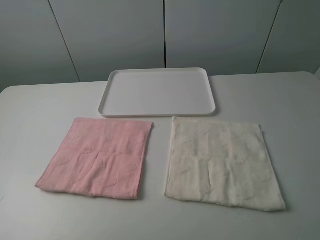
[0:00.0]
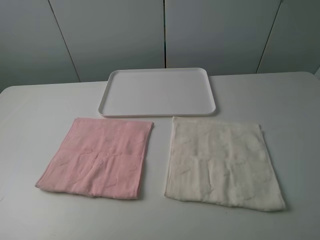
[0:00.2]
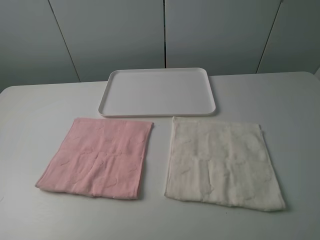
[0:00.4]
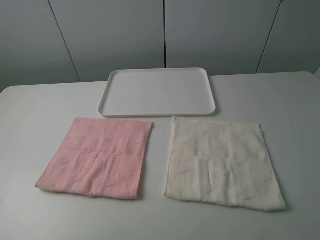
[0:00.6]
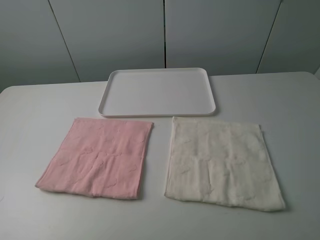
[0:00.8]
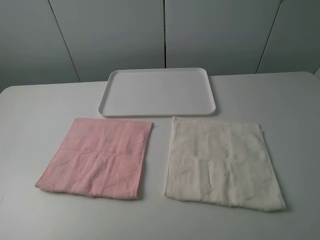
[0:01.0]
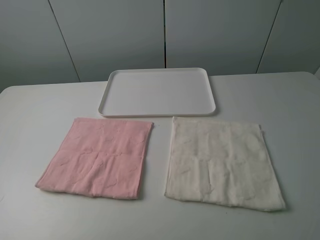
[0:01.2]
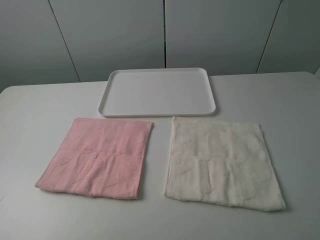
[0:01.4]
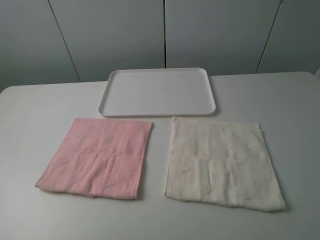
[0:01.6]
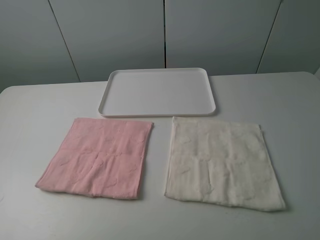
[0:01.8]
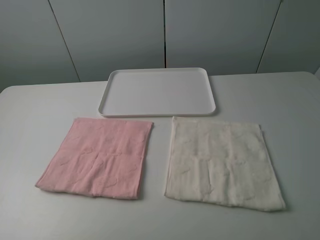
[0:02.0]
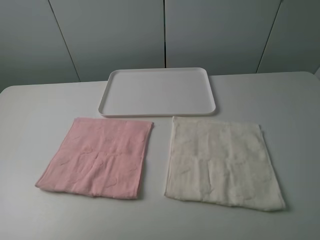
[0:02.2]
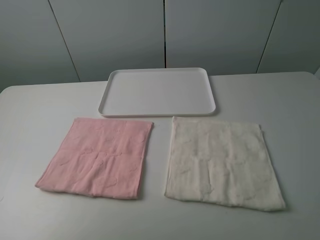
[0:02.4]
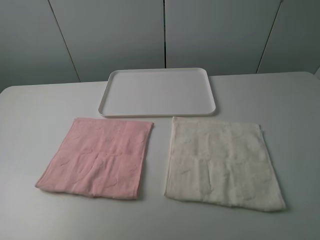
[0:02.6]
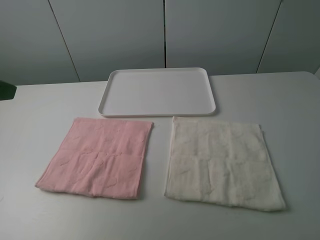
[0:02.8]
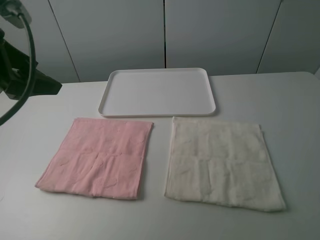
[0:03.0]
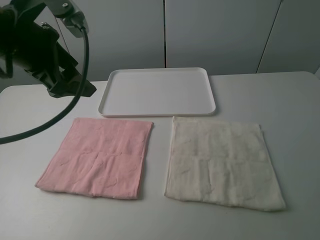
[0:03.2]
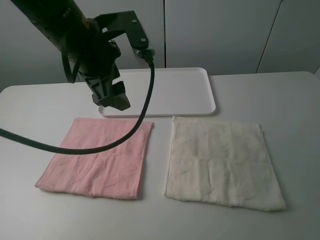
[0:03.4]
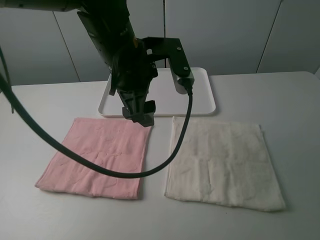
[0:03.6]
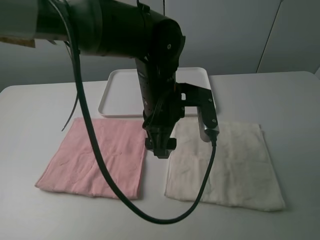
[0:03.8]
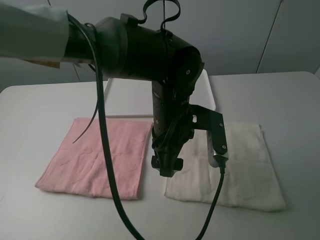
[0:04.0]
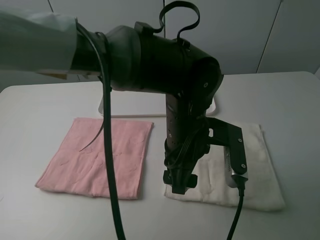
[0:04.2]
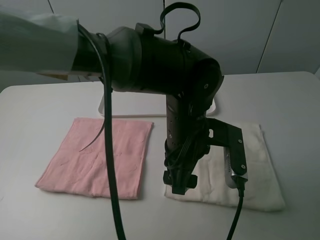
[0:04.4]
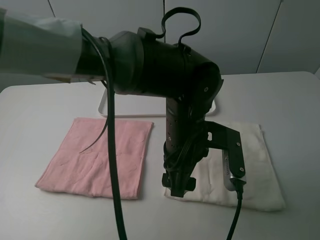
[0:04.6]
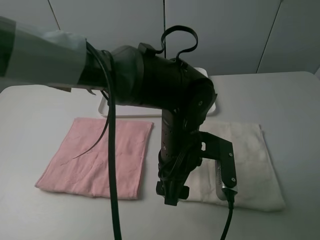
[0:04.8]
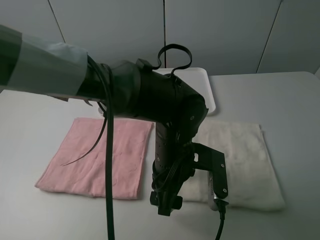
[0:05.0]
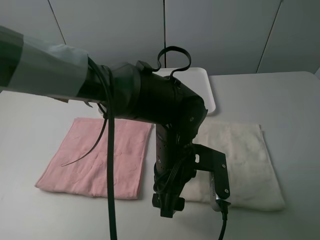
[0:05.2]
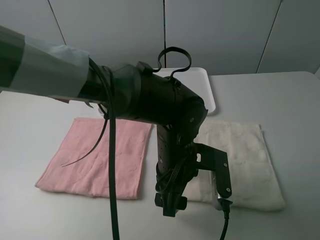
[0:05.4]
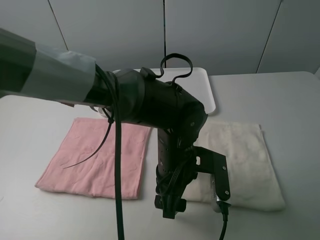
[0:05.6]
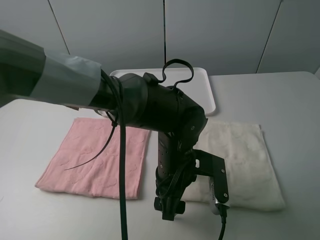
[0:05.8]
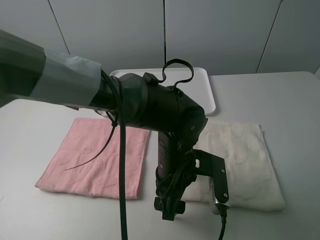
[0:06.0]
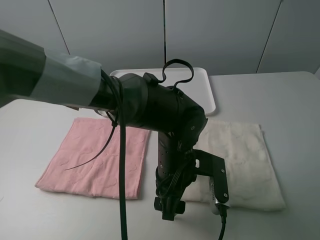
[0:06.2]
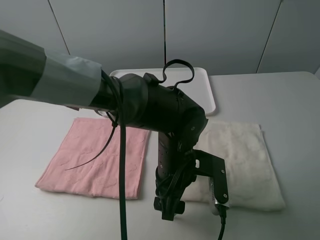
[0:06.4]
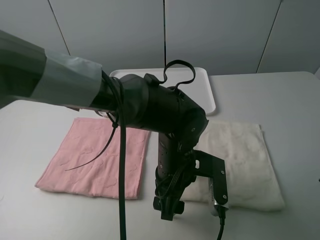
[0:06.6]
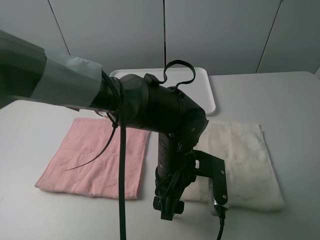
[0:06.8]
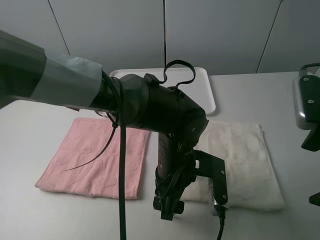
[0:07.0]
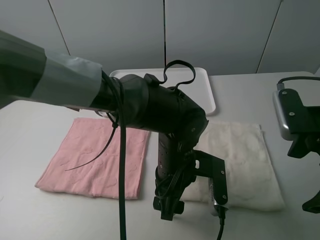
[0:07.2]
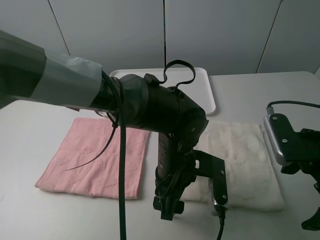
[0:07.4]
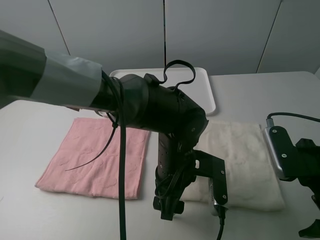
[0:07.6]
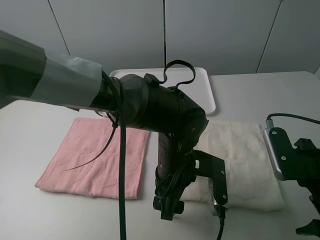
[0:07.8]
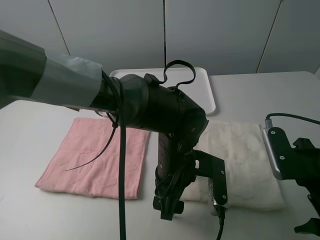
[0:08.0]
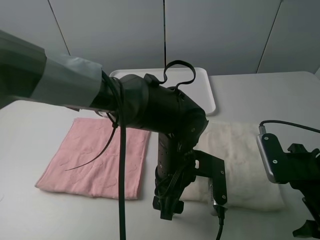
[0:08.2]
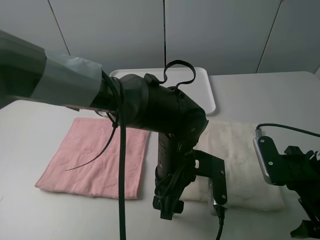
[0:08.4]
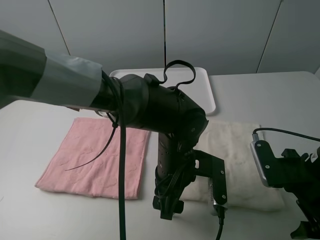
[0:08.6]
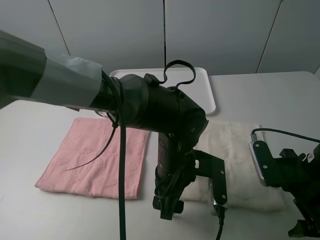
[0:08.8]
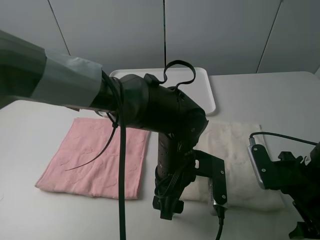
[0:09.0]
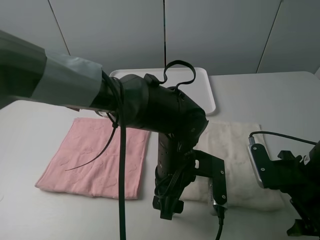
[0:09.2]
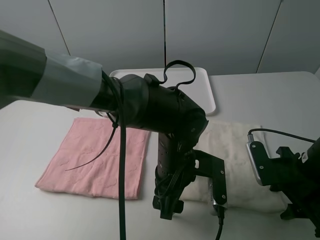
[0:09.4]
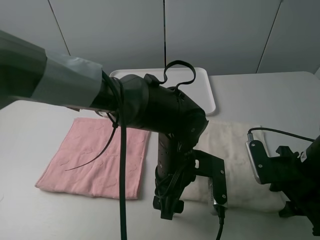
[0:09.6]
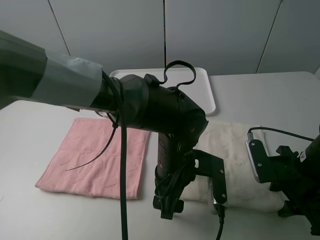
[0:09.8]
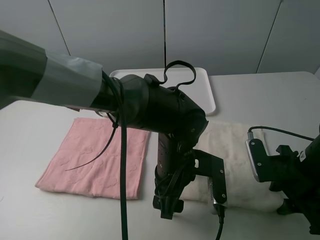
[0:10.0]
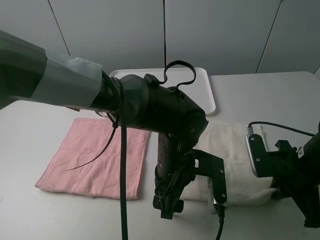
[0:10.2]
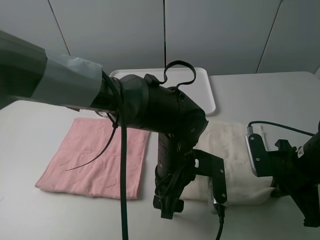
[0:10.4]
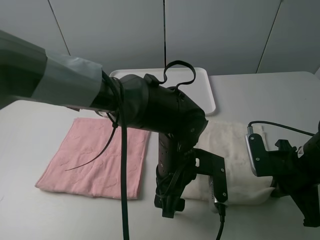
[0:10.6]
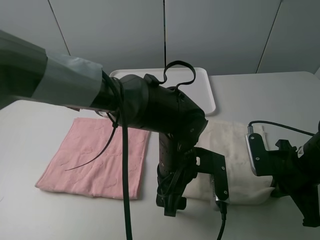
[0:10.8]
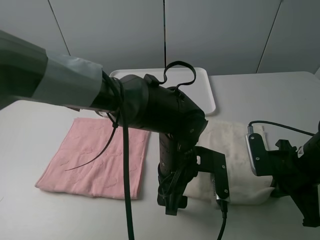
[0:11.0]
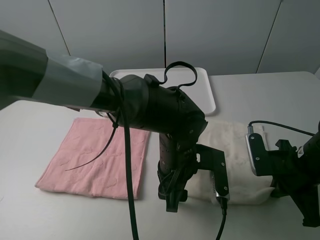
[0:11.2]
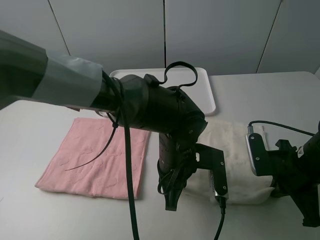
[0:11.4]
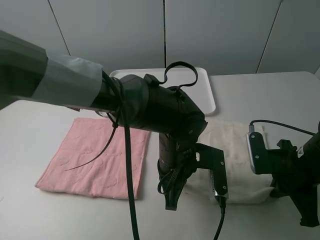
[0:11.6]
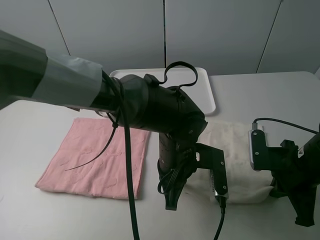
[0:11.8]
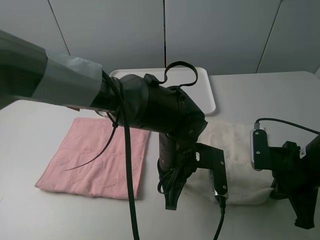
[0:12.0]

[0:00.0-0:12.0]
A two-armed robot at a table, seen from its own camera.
Task of the whole recording: fold one of the towels by two grippers and place it on the tray,then fold another towel by two grippers and place it on the folded towel.
Step, 0.0 to 11.0 s: Grasp the white towel with the left gripper.
0.0 to 1.6 s: Both grippers stay about where they are.
1.6 to 3.0 s: The left gripper moves forward, approximately 25 cm.
3.0 to 4.4 s: The left gripper is displaced to the right and downward by roughly 30 cm.
4.4 to 6.0 s: The left gripper shifts about 5 cm downward.
6.0 to 7.6 s: The right gripper shifts some 15 cm downward and forward.
7.6 to 9.0 s: The right gripper heads downward, covering roughly 5 cm.
9.0 to 10.4 s: The right gripper closes up.
10.4 to 12.0 s: The left gripper closes up.

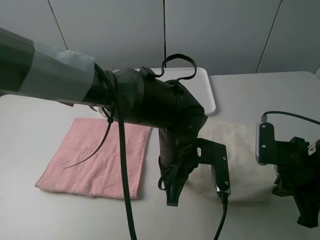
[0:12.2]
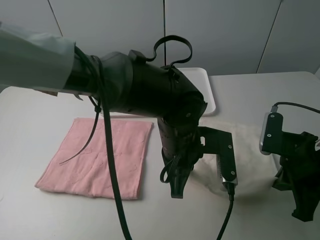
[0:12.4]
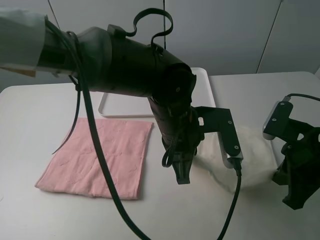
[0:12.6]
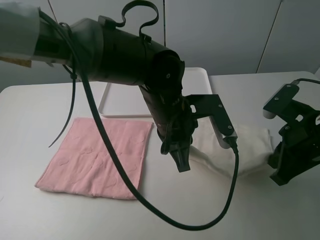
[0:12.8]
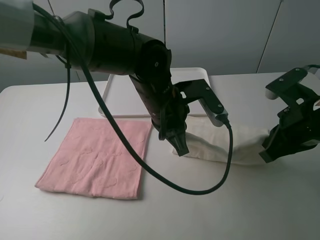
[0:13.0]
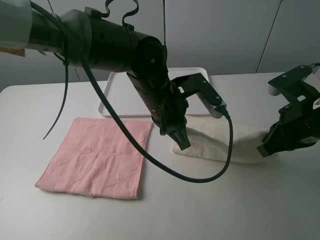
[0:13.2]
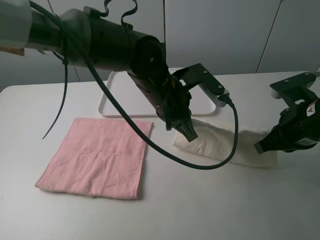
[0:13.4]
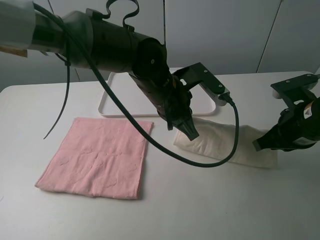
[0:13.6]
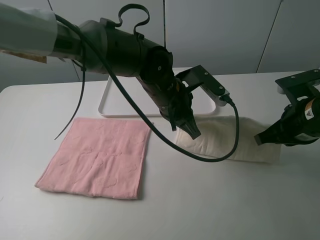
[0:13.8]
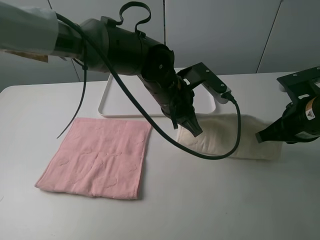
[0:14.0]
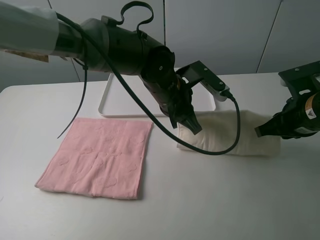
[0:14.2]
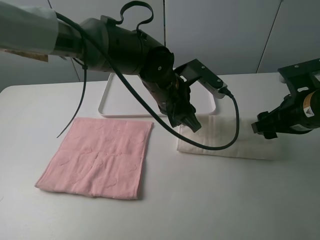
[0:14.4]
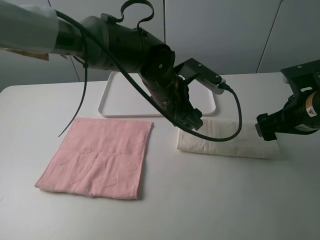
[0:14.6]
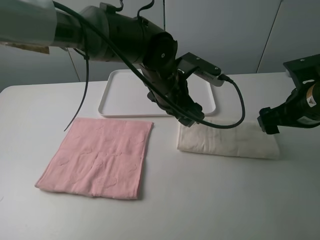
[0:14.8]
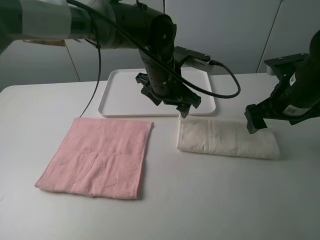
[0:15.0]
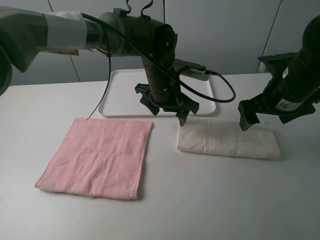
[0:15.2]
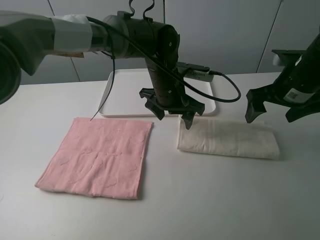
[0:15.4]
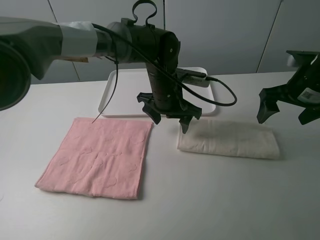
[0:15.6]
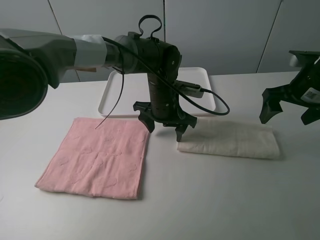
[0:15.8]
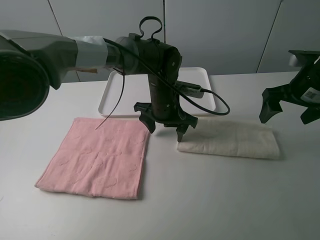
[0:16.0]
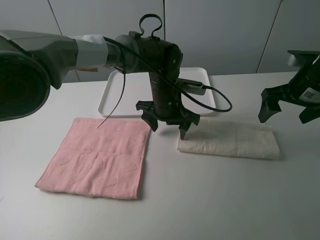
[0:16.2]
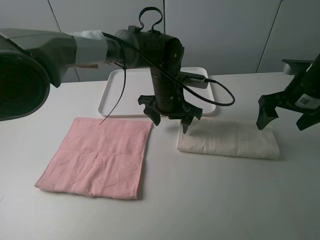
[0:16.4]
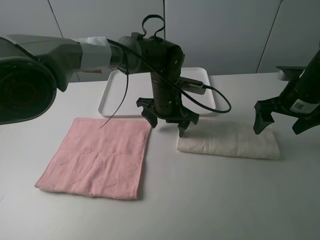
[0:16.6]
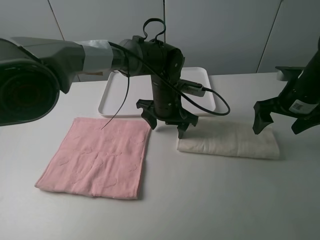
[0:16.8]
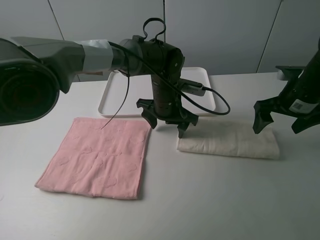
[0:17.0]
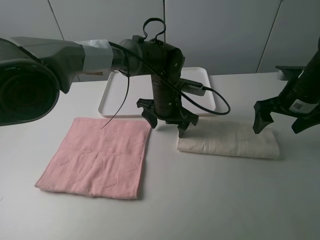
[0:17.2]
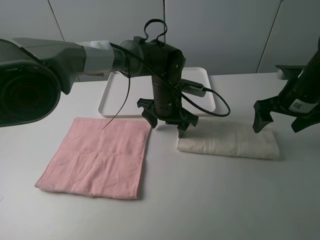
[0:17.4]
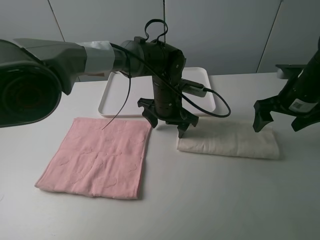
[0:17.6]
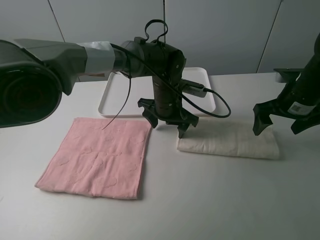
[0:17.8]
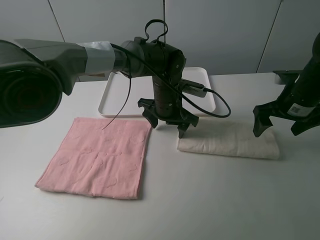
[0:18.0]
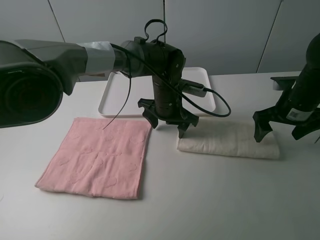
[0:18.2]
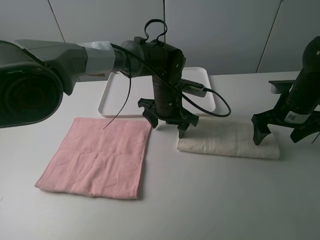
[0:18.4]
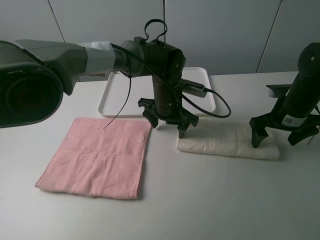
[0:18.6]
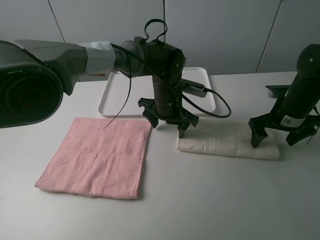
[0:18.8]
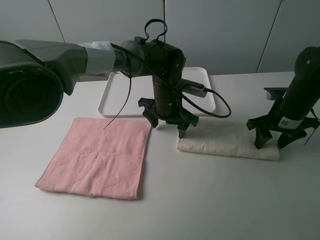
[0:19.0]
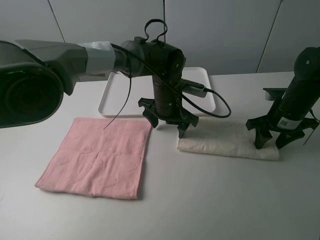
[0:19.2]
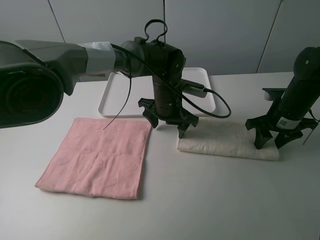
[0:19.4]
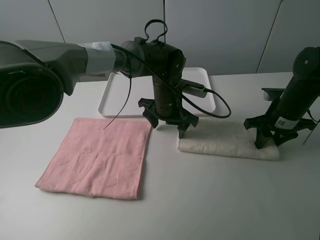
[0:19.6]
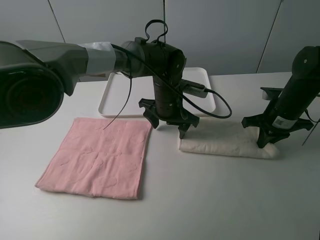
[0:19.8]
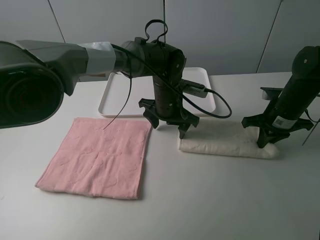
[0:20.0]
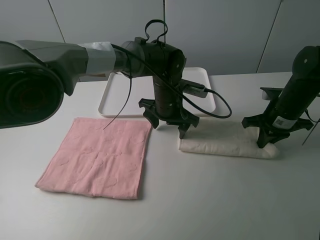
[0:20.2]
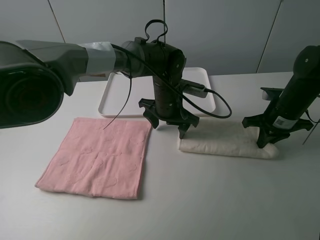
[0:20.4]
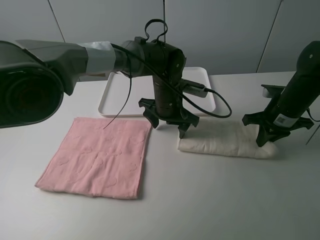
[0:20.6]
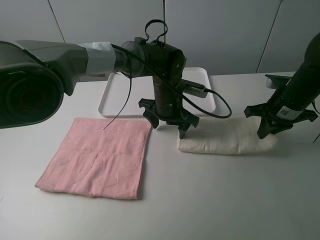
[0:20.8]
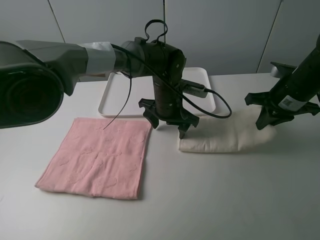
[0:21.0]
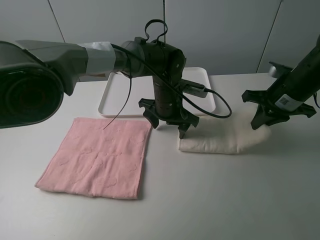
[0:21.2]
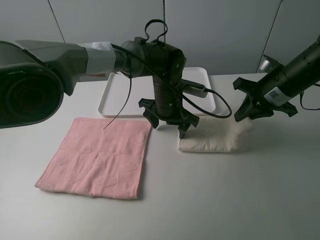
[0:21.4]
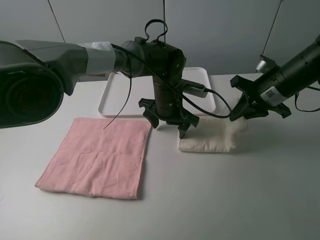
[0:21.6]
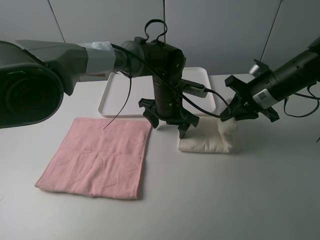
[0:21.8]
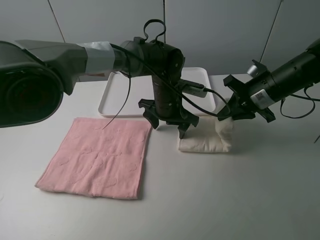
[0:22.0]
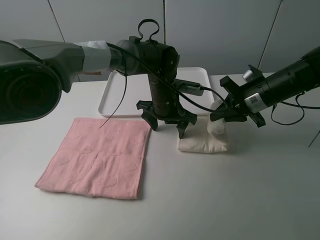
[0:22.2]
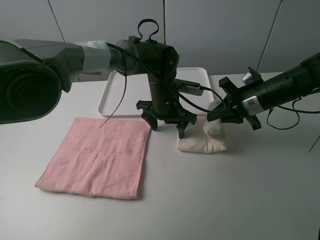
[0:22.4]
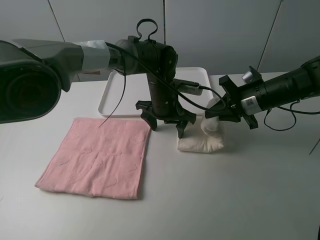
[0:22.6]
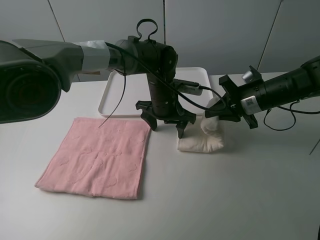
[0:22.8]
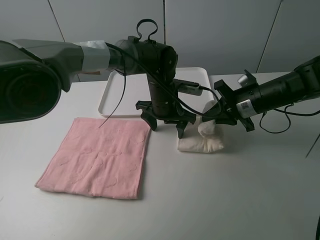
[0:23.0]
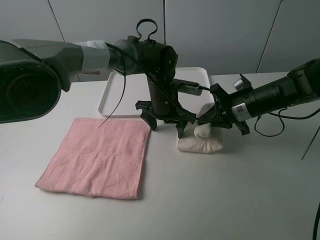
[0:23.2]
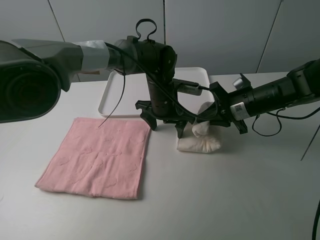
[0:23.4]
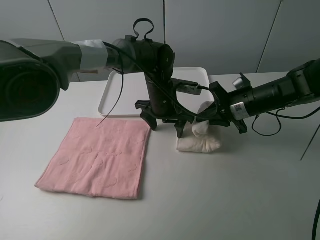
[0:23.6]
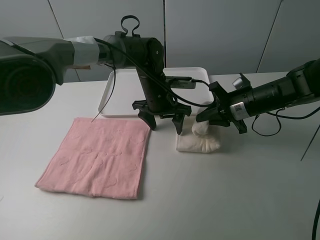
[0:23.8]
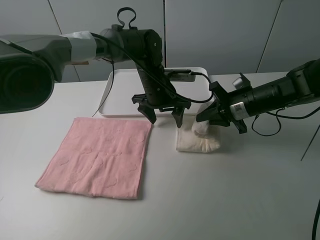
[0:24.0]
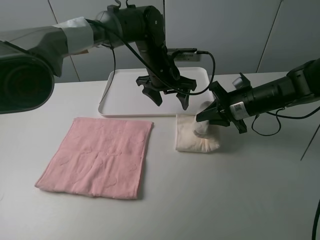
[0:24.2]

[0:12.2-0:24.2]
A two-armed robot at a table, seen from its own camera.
Task of the whole recording: fold one of the towels by two grippers and place it on the tray,then fold another towel by two grippers and place it on the folded towel.
Step, 12.2 to 14.4 s: Fold the white towel upwards with the left gripper.
Step, 14.6 to 17.0 s: Press the white towel with the left gripper.
Step, 17.2 to 19.8 s: Grasp the white towel with the right gripper.
12.2 to 13.8 s: The left gripper goes some 10 cm forward; the right gripper heads forward, covering some 5 cm.
13.8 to 15.2 s: The right gripper goes some 5 cm forward, and opens; the left gripper opens.
15.2 to 16.6 s: The right gripper goes approximately 5 cm to the right.
16.6 to 18.2 s: The grippers stay close to where they were, moving slightly.
18.2 to 19.8 s: The right gripper closes its fingers.
19.8 to 21.2 s: The right gripper travels upward by roughly 5 cm.
21.2 to 22.6 s: The right gripper shifts by about 5 cm.
22.6 to 24.2 s: The left gripper is displaced upward by about 5 cm.
